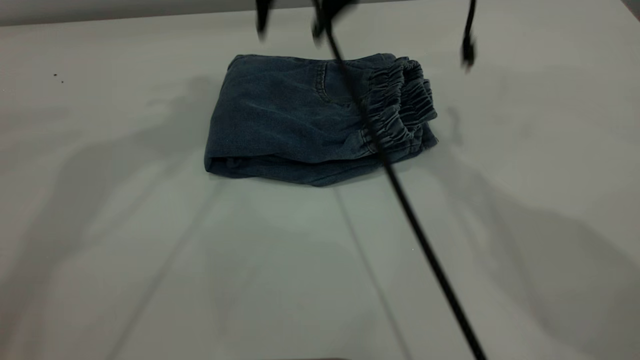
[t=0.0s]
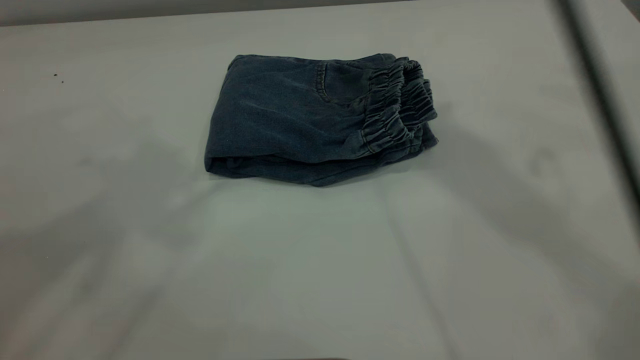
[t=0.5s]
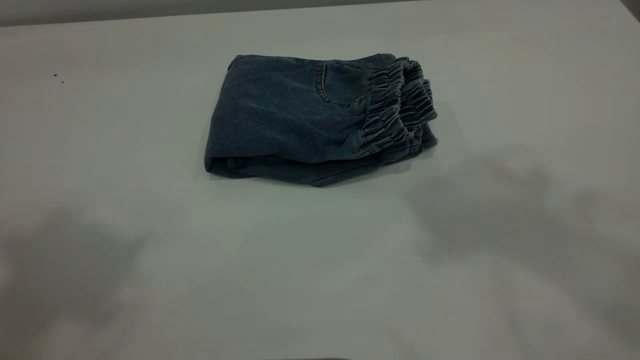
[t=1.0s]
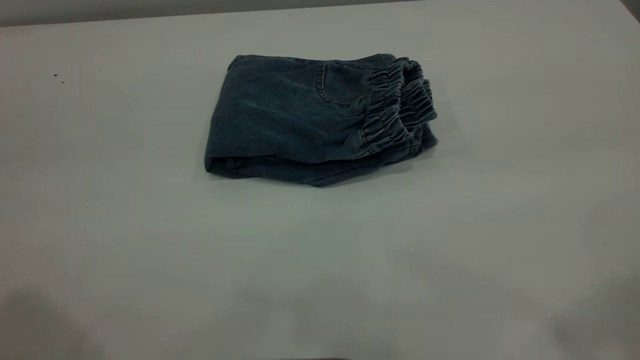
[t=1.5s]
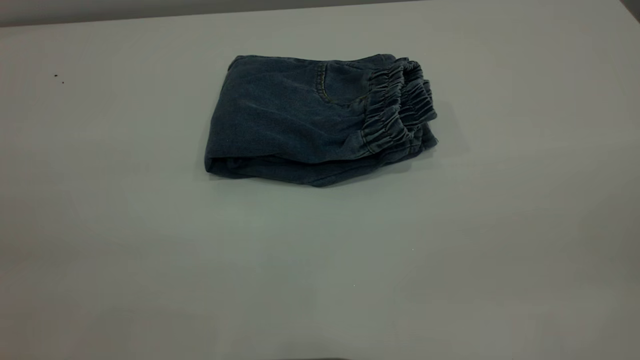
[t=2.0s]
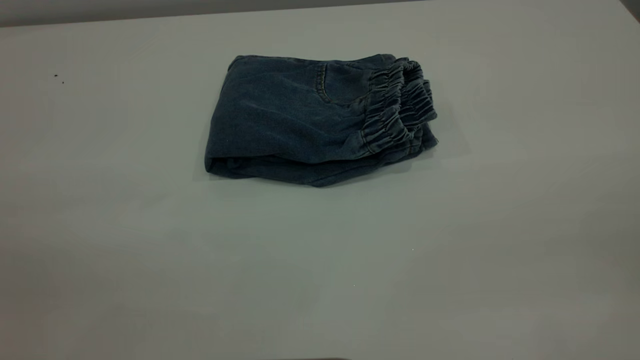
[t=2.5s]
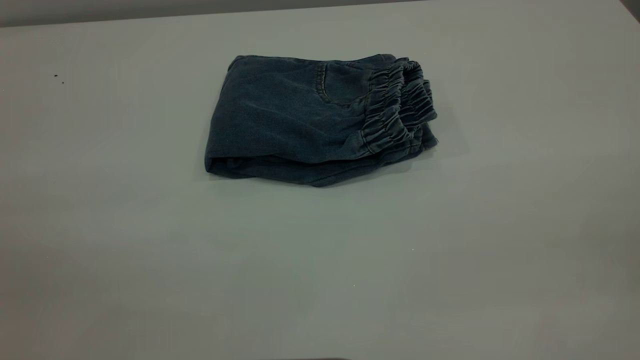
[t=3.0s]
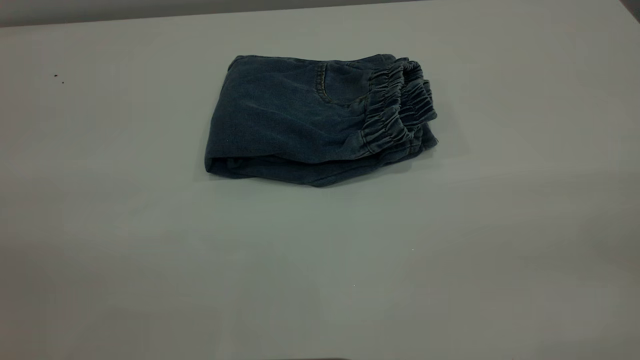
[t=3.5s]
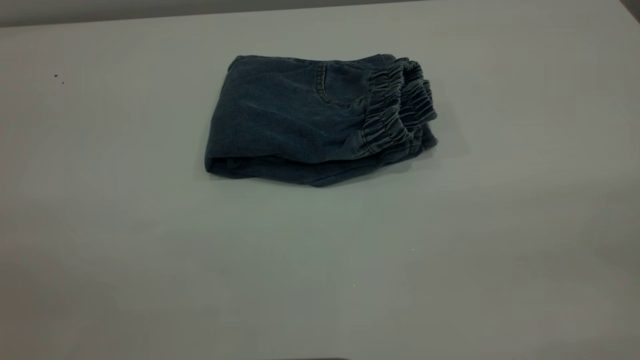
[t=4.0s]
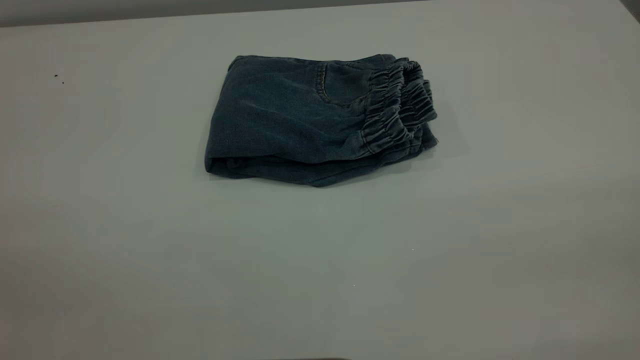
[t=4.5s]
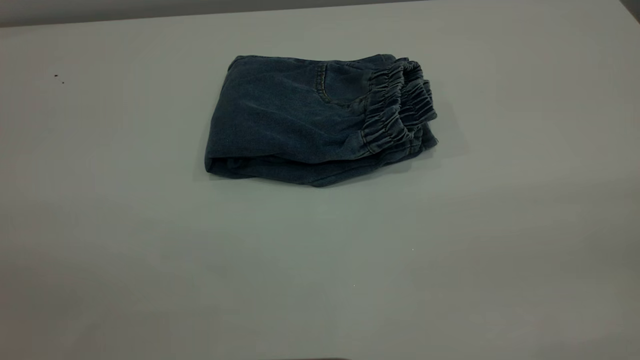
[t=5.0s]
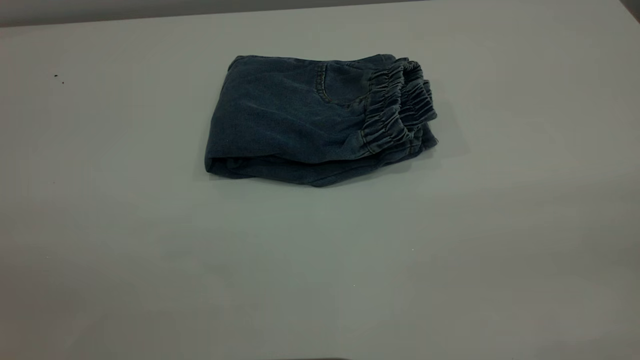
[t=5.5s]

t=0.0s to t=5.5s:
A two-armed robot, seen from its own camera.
t=0.0s to t=2.0s: The right gripper is displaced backward and to the right by about 50 cm, while the left gripper is displaced backward by approximately 35 cm.
